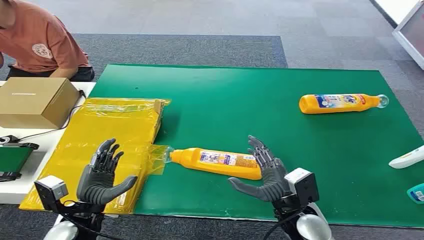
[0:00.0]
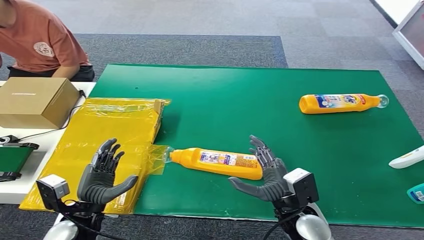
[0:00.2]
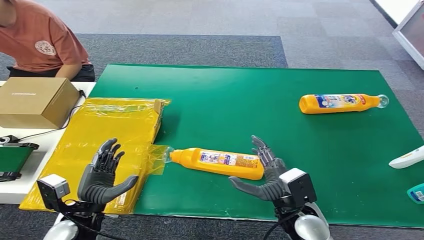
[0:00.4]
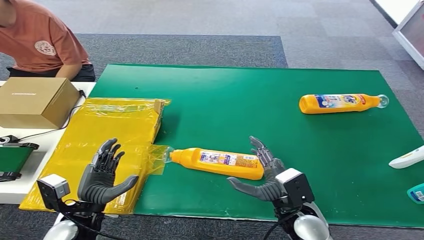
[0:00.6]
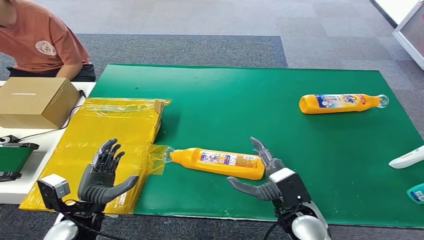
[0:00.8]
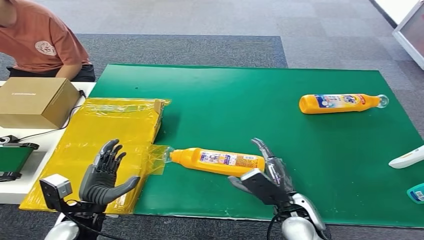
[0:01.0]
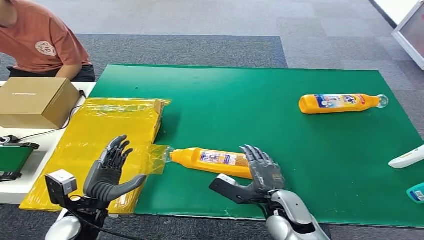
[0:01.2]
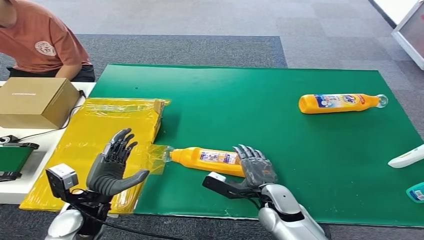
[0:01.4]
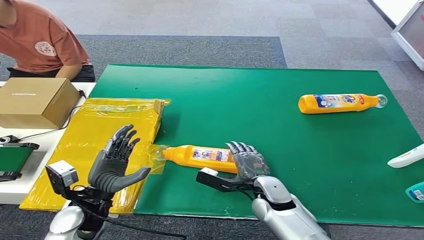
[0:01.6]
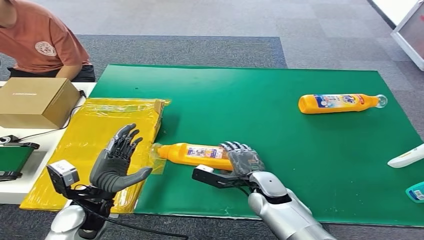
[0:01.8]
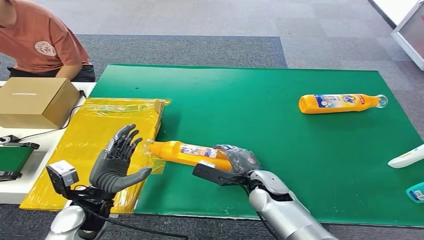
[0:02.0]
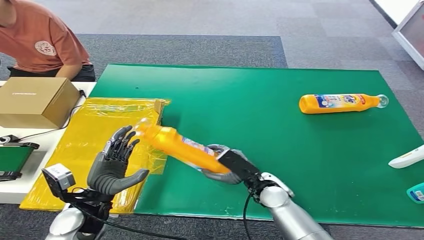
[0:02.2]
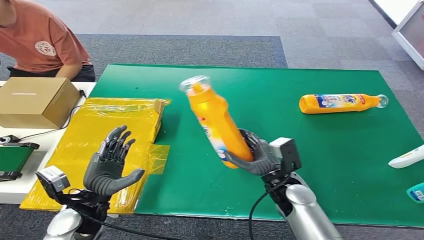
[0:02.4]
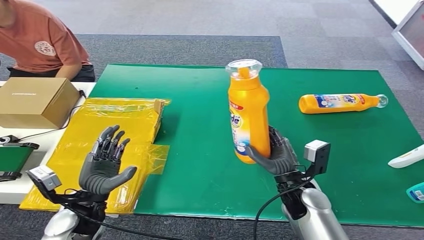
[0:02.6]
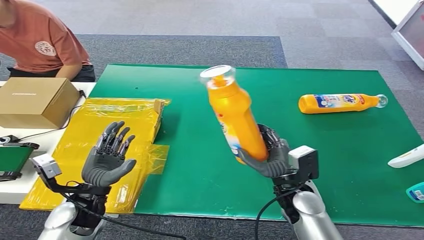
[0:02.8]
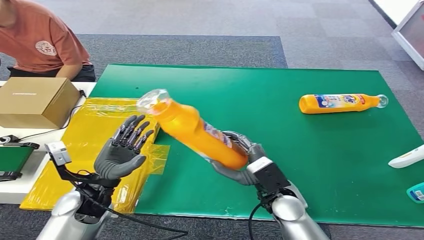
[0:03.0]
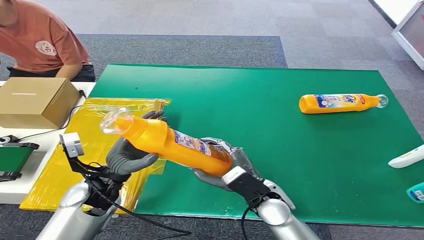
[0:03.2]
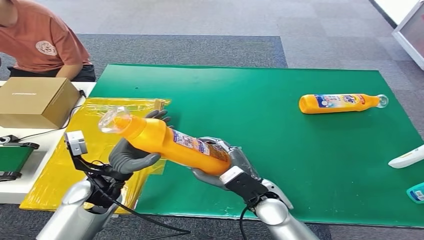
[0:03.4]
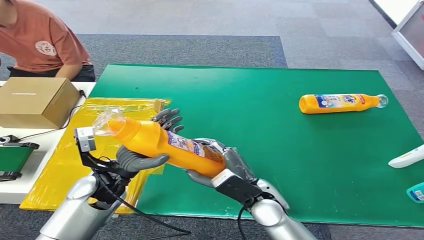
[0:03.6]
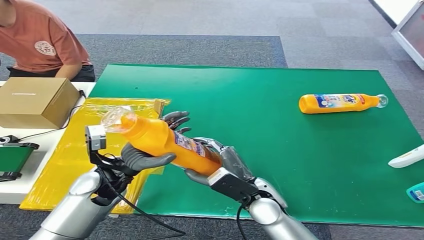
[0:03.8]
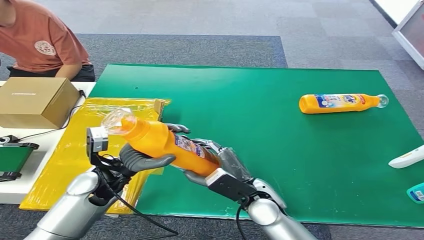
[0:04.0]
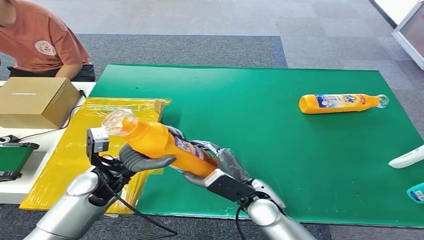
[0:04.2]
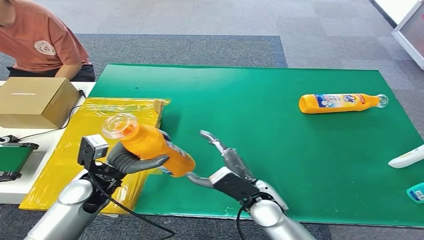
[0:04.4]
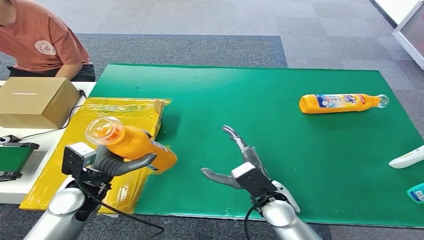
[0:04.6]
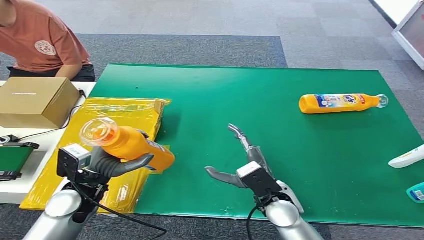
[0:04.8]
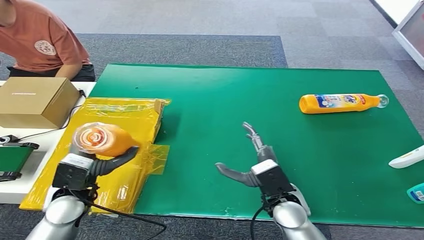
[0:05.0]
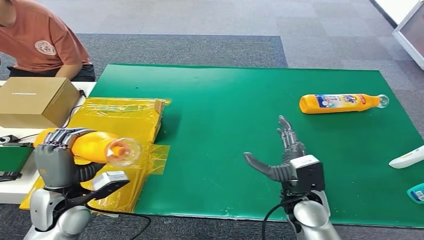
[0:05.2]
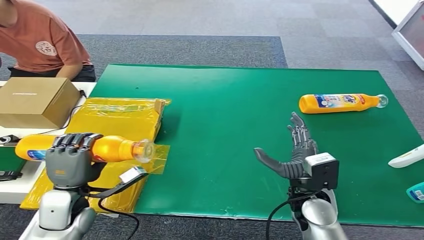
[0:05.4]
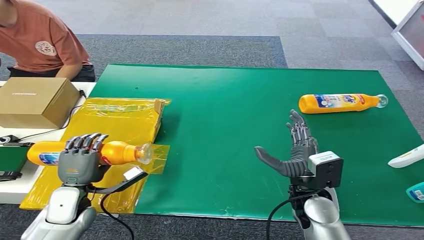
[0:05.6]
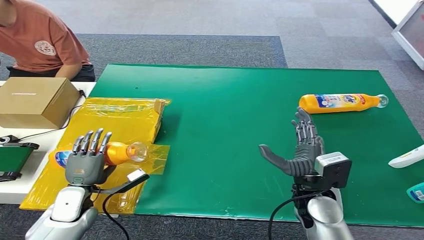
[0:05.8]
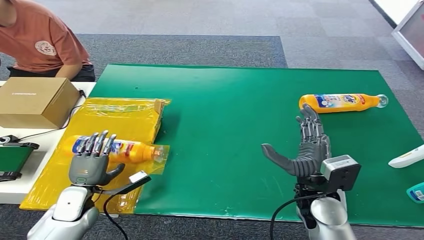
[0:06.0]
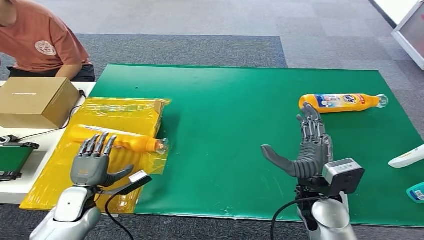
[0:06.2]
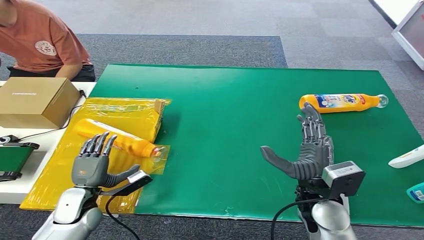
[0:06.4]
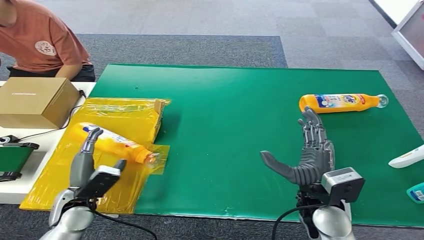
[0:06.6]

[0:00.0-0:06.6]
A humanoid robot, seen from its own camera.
Step, 0:00.0 to 0:02.4: Pick up the bottle from the table.
Step, 0:02.6 to 0:06.6: Turn the bottle to the front side.
0:01.6 to 0:03.2: The right hand is displaced upward by about 5 cm, while the left hand ends up roughly 5 cm from where it was.
0:05.0 to 0:06.6: The right hand is displaced upward and to the right by approximately 10 cm. The left hand is displaced downward by about 5 cm.

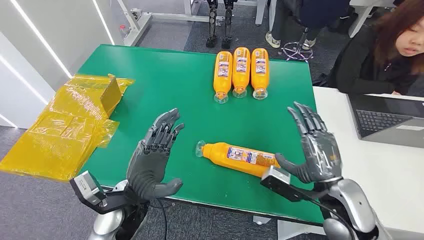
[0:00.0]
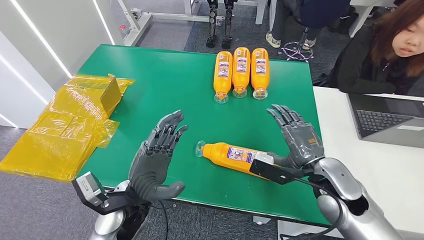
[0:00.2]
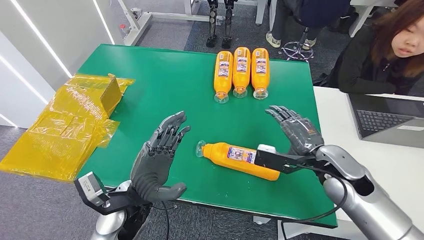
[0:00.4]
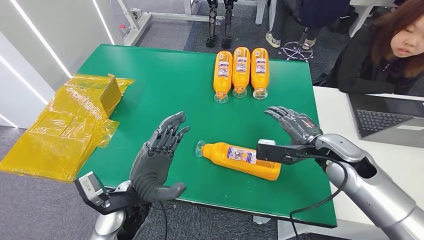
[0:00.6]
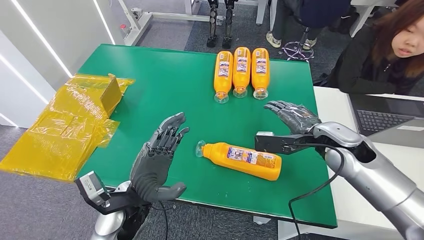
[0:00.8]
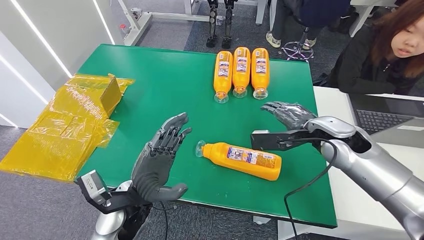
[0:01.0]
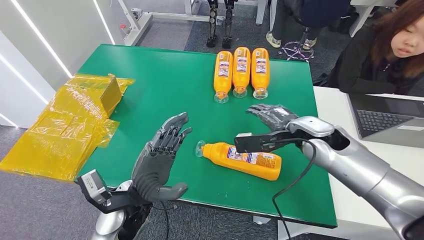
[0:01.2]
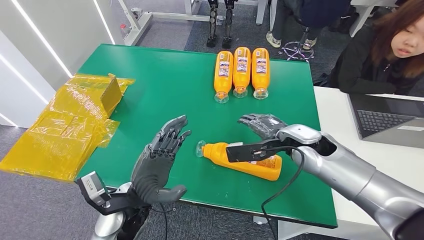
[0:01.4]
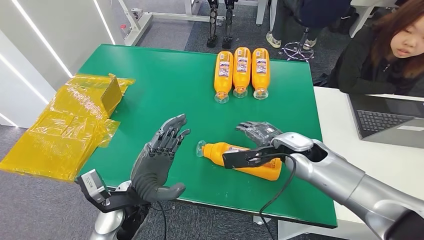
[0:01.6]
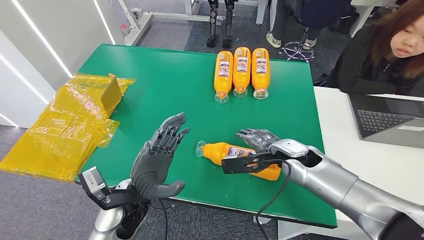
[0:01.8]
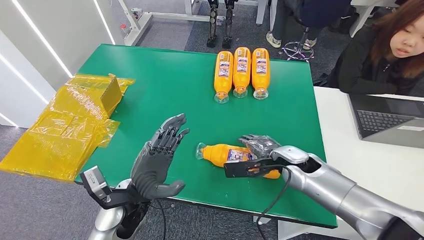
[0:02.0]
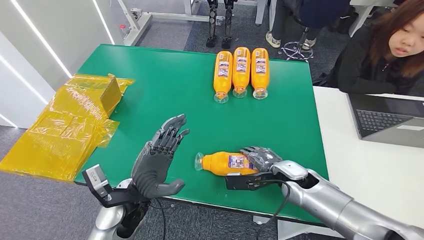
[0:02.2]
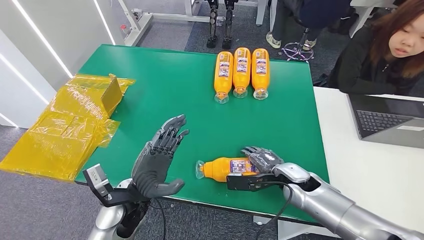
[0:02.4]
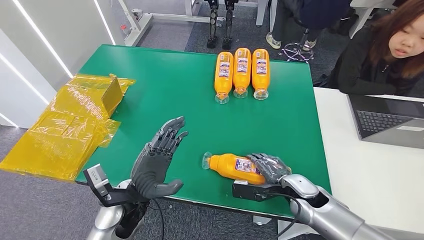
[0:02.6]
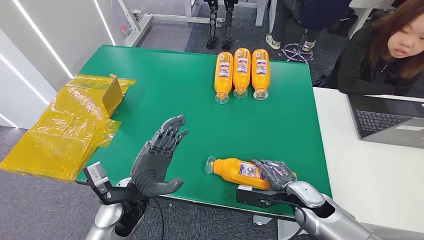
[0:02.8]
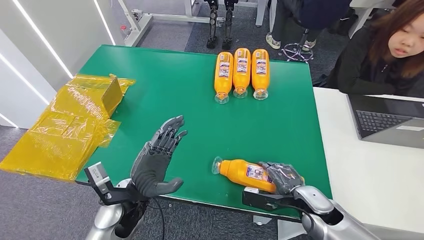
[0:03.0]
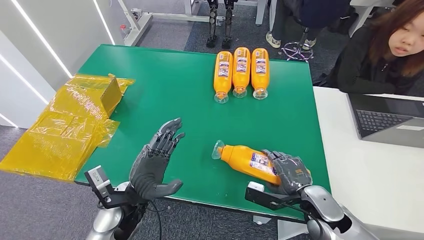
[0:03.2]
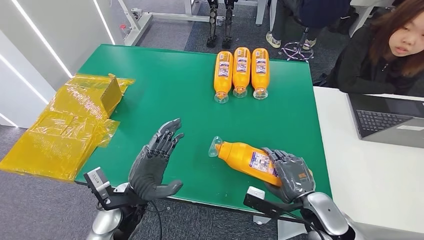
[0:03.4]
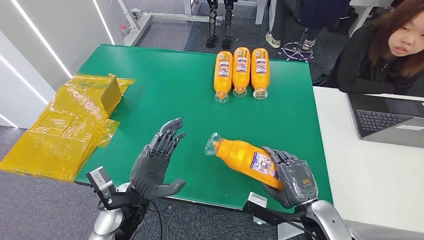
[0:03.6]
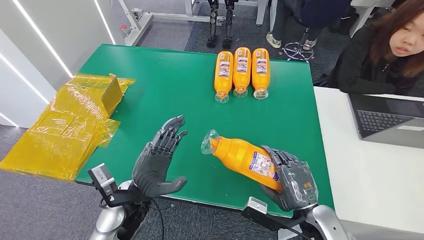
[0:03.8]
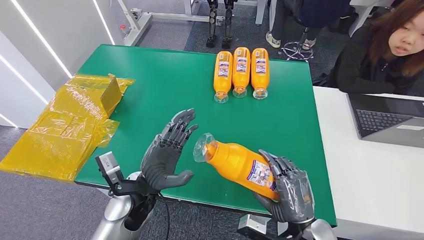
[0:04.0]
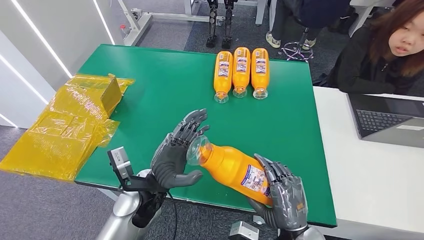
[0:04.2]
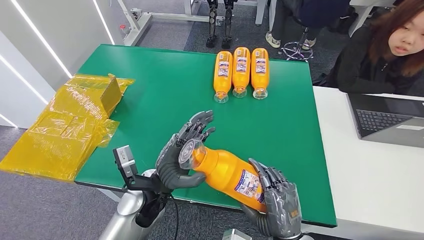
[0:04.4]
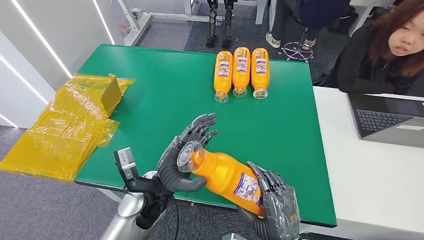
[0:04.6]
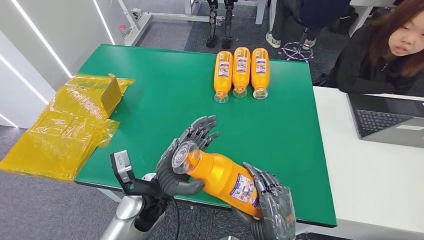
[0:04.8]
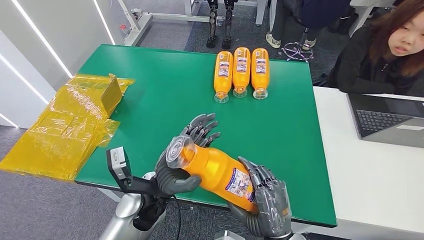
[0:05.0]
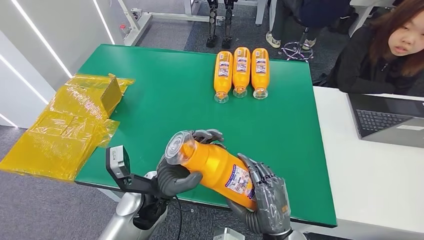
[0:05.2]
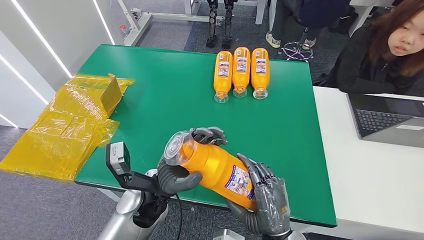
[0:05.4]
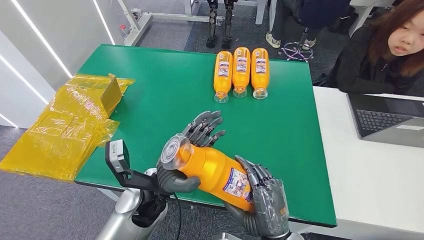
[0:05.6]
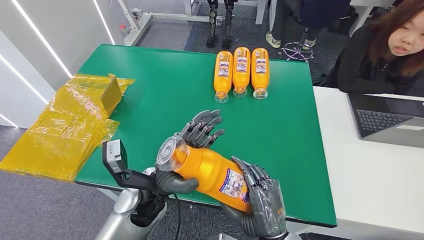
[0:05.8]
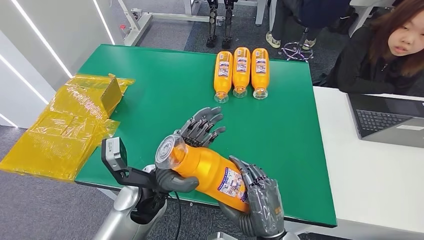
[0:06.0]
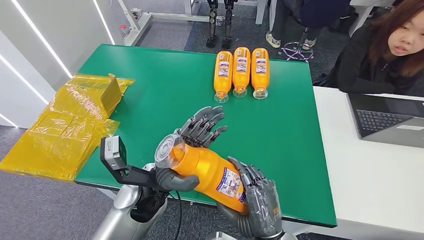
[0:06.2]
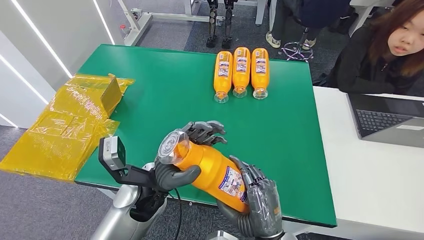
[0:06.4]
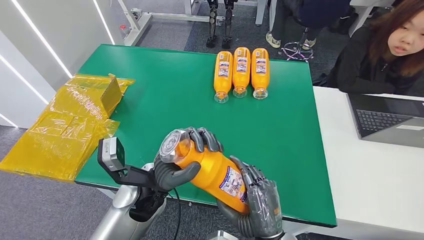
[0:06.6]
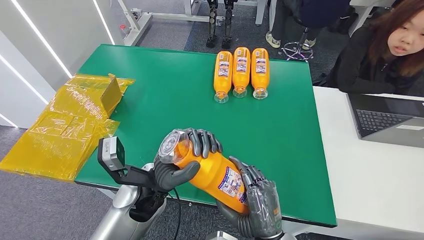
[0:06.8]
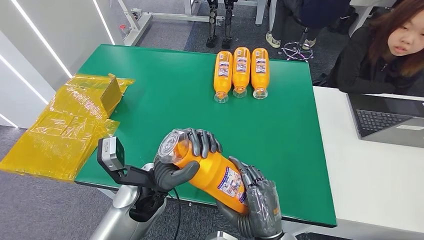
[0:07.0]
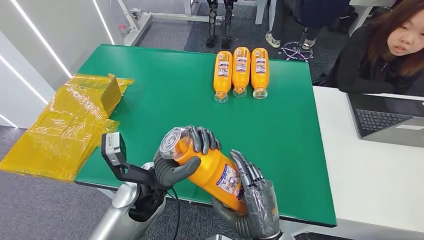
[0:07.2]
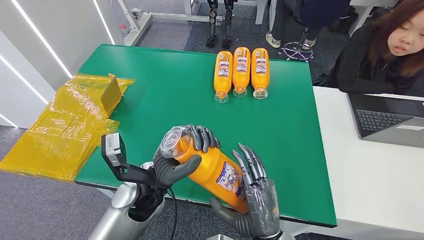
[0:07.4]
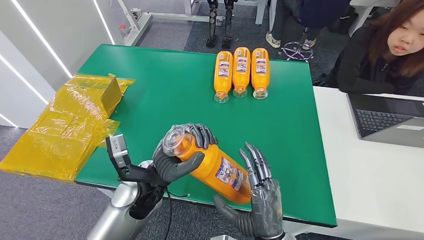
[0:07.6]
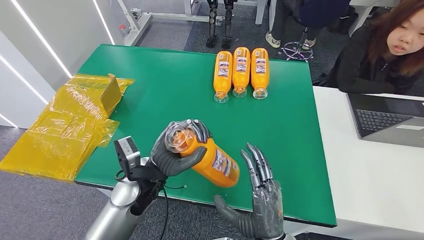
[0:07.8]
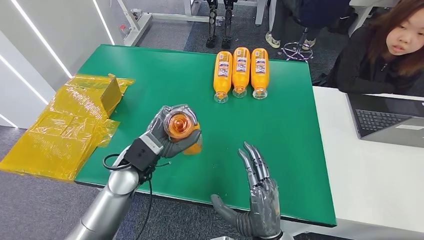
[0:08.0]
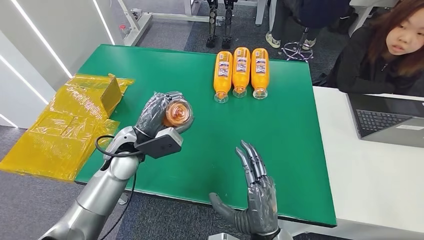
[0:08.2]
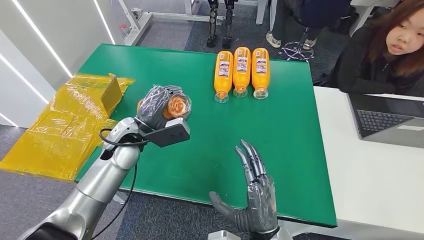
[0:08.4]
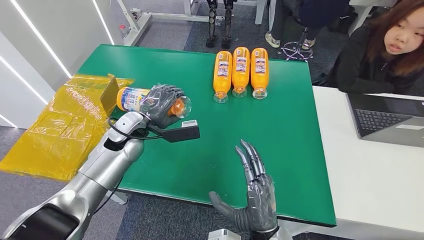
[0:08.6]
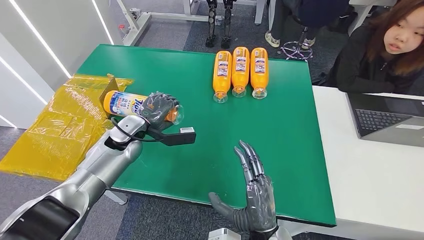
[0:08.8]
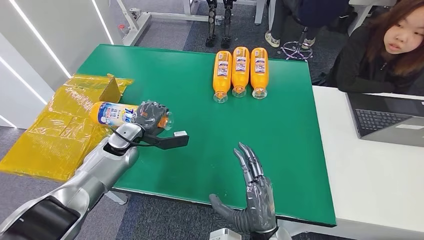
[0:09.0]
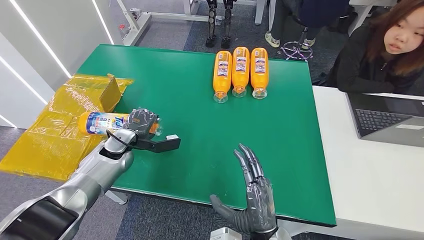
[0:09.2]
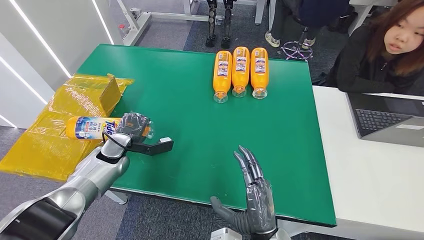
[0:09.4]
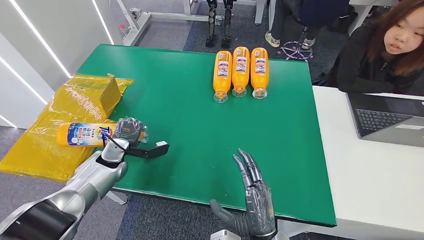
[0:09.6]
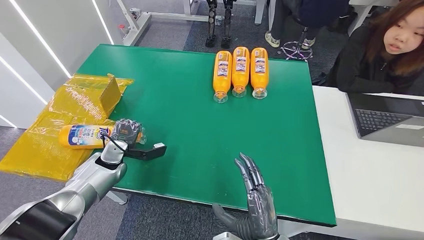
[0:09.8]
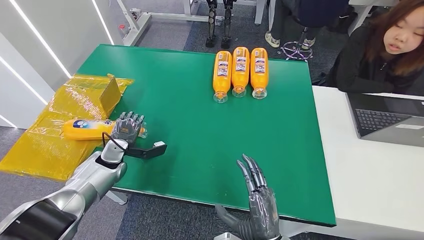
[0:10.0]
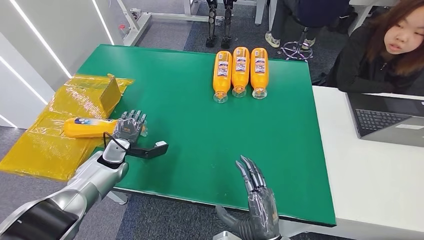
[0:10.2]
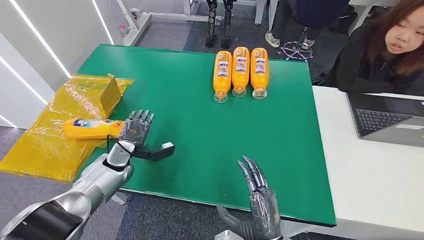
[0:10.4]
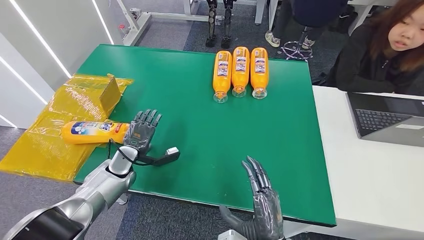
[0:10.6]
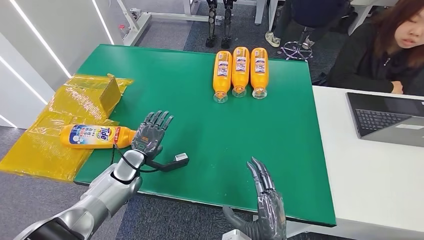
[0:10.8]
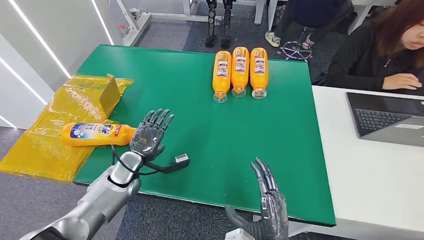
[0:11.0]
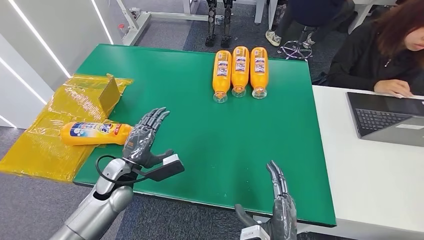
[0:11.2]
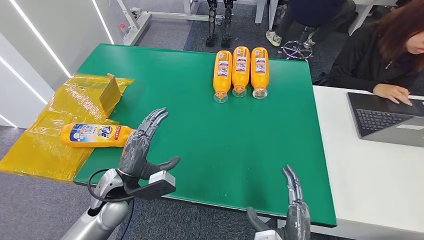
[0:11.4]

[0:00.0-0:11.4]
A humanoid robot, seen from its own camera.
Step, 0:00.0 to 0:05.0: Pick up the bottle from the table.
Step, 0:05.2 to 0:11.4: Turn the bottle to the front side.
0:01.4 to 0:02.8: The right hand goes some 20 cm downward and backward.
0:02.8 to 0:04.2: The right hand goes some 10 cm backward.
0:04.2 to 0:05.6: The right hand heads to the left, covering roughly 5 cm.
0:05.6 to 0:07.2: There are only small adjustments of the hands.
0:07.2 to 0:08.6: The left hand shifts about 15 cm forward and to the left.
0:08.6 to 0:10.0: The left hand shifts some 15 cm downward and to the left.
0:10.0 to 0:11.4: The right hand ends up about 5 cm from where it was. Meanwhile the left hand is displaced backward and to the right by some 15 cm.
